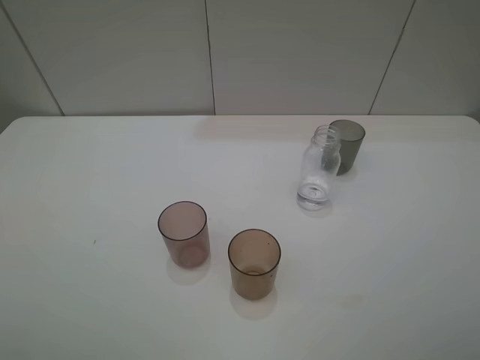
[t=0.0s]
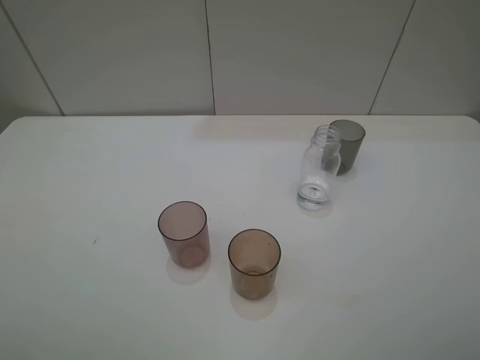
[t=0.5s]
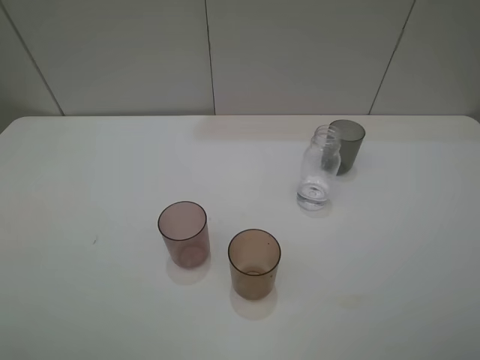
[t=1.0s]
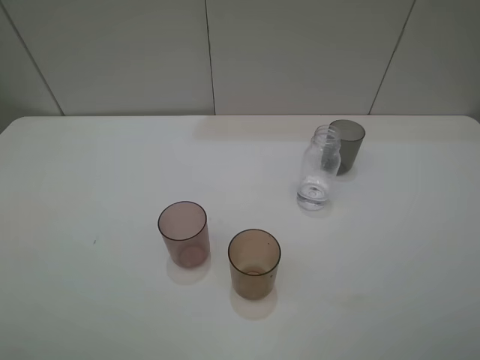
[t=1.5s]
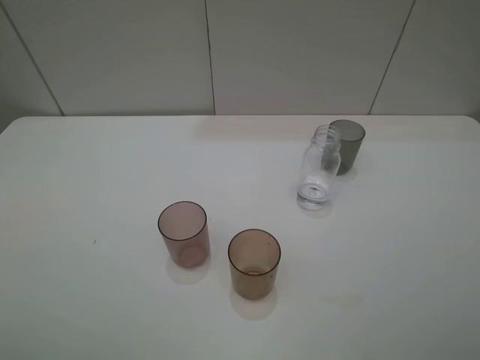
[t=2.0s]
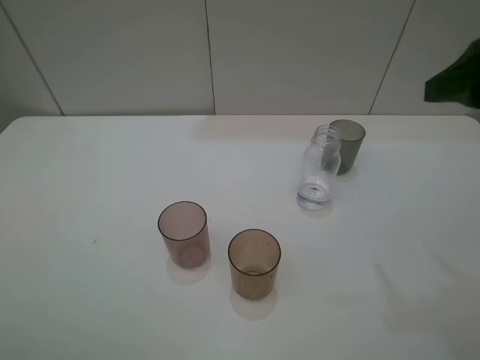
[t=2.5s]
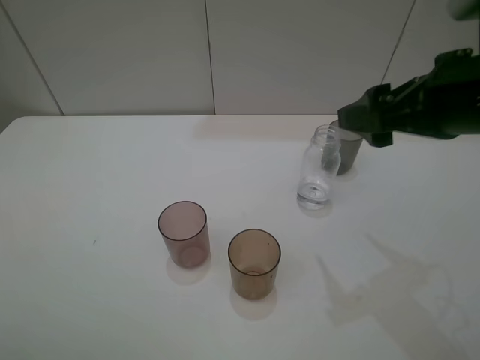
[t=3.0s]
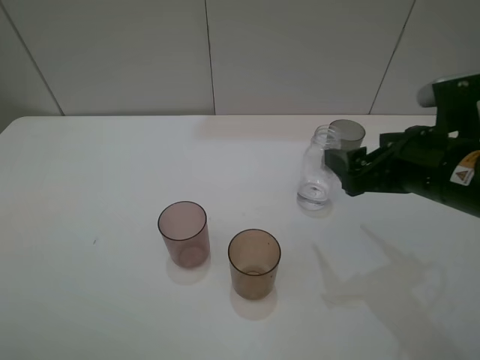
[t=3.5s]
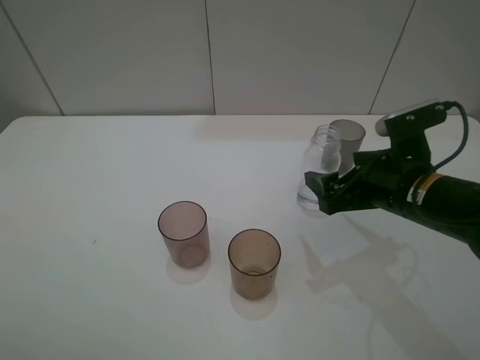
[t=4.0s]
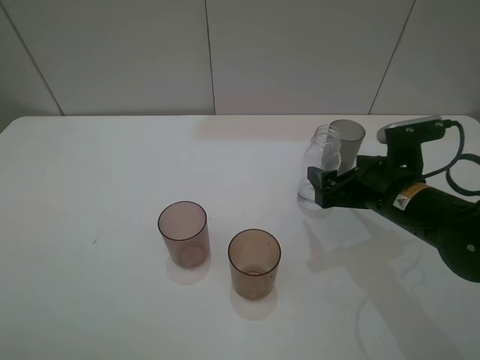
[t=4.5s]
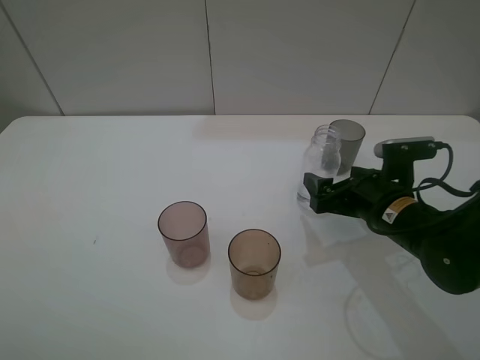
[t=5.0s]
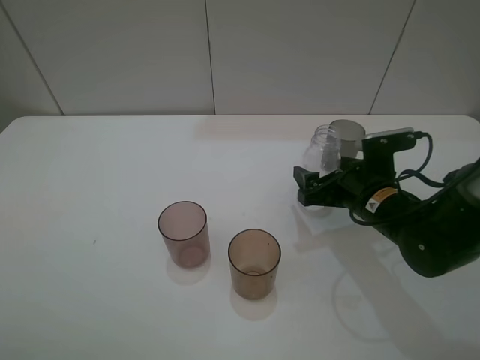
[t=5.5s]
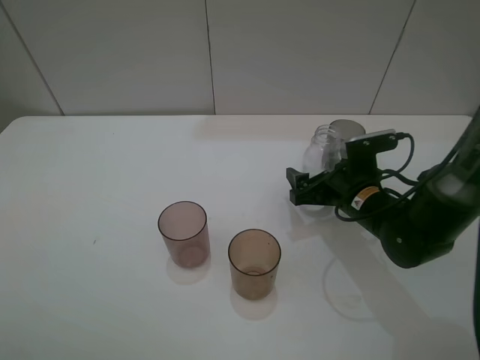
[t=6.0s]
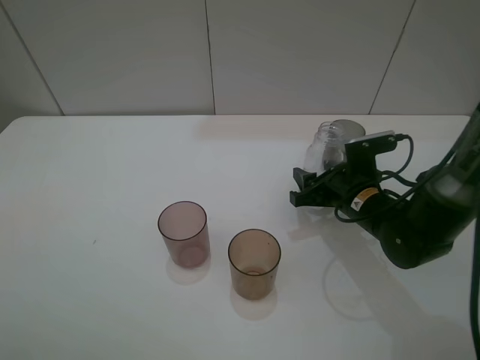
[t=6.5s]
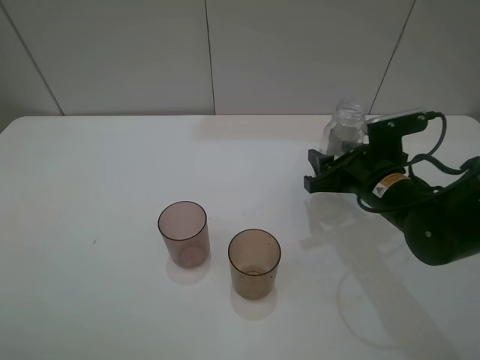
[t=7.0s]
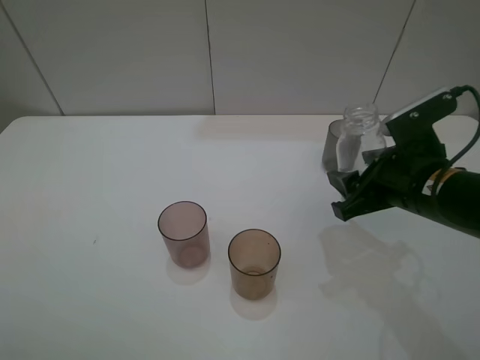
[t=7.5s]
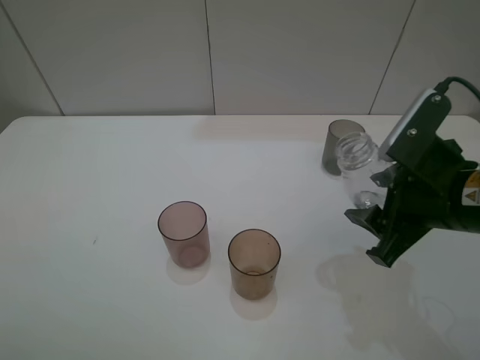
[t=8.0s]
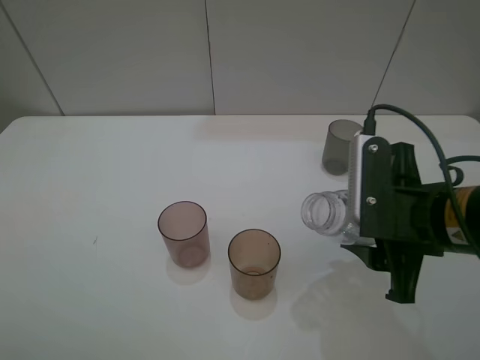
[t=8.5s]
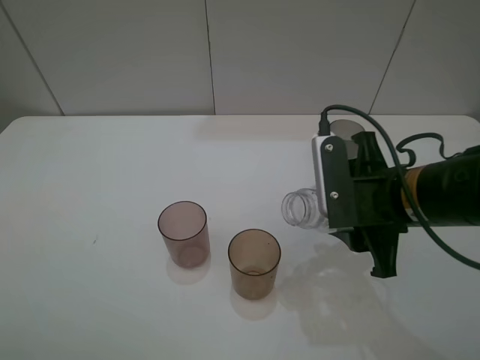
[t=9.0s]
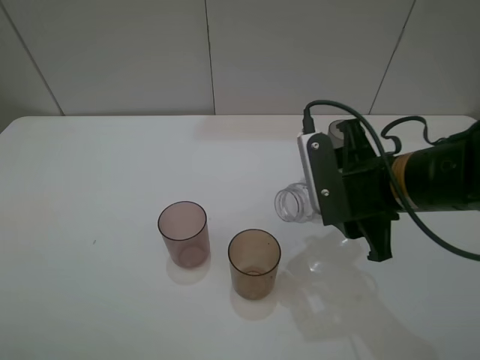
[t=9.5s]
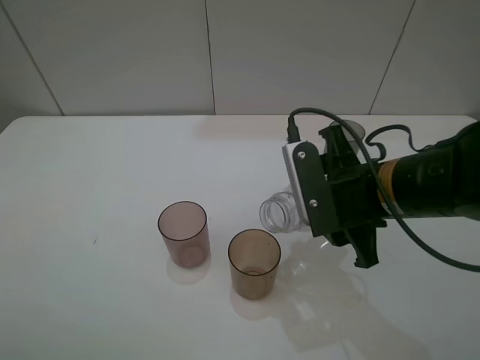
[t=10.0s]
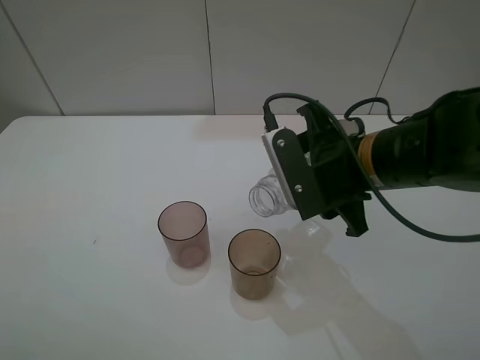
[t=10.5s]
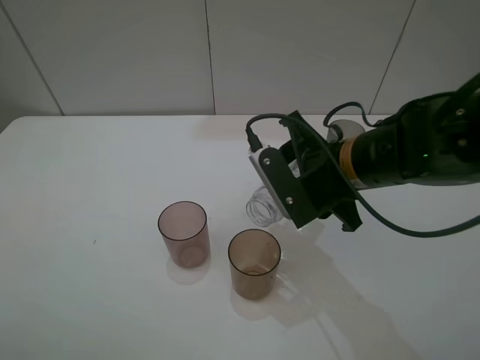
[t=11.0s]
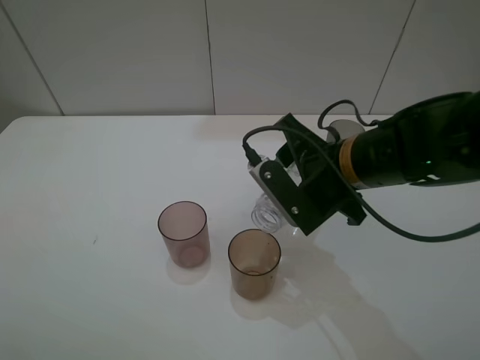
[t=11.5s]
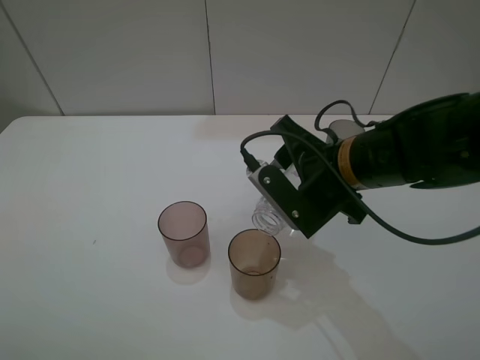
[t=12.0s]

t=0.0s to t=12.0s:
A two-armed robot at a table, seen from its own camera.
Task of the whole recording: pick up the bottle filled with water and pour water into the middle cup of the three cups.
Step, t=0.0s to t=6.0s: Place the transparent bottle with the right gripper.
t=2.0s to t=4.0s: The right gripper goes approximately 25 cm forward, downward and to the left.
t=4.0s to t=6.0s: The right gripper travels downward and forward by roughly 10 cm.
t=6.0s to t=8.0s: The right gripper is displaced upward and backward by approximately 15 cm, and closes.
t=8.0s to t=10.0s: The right gripper travels to the left by about 5 cm.

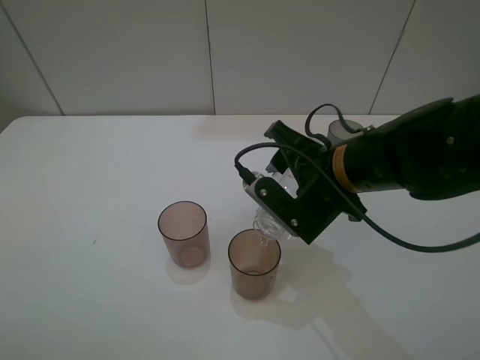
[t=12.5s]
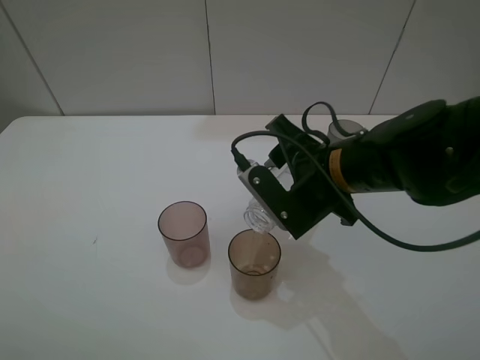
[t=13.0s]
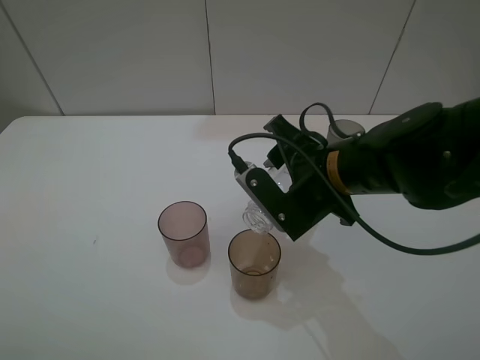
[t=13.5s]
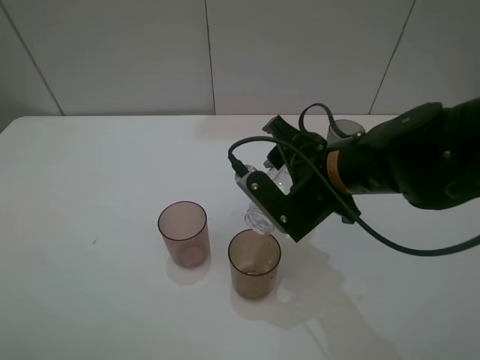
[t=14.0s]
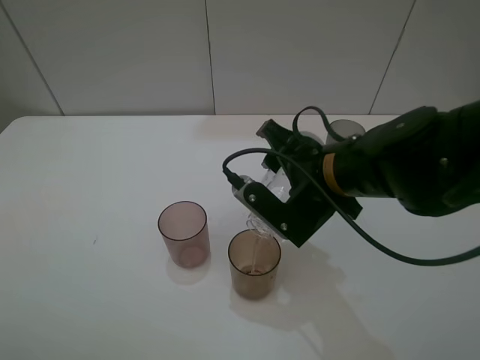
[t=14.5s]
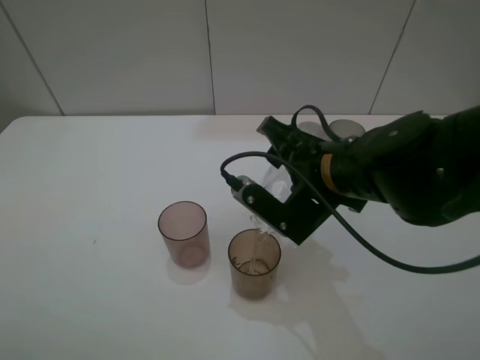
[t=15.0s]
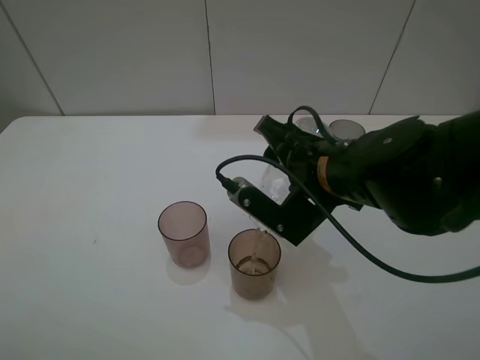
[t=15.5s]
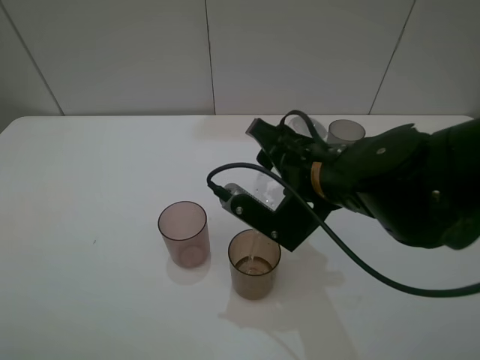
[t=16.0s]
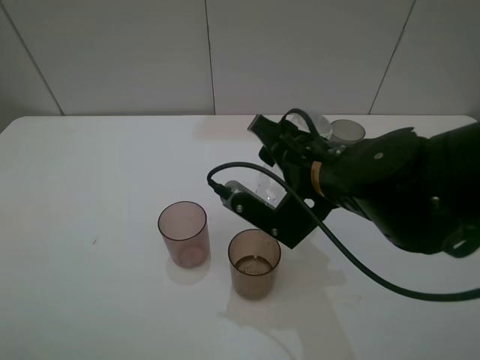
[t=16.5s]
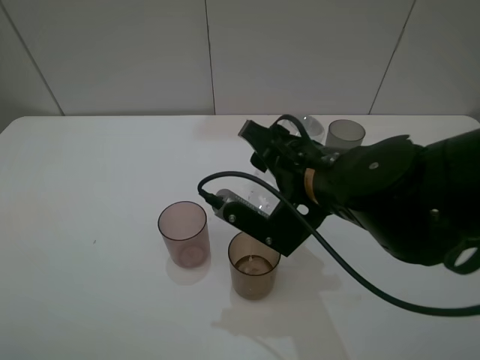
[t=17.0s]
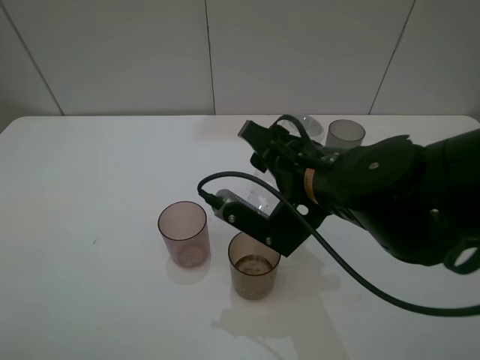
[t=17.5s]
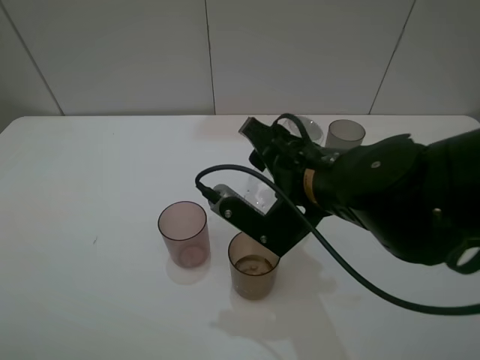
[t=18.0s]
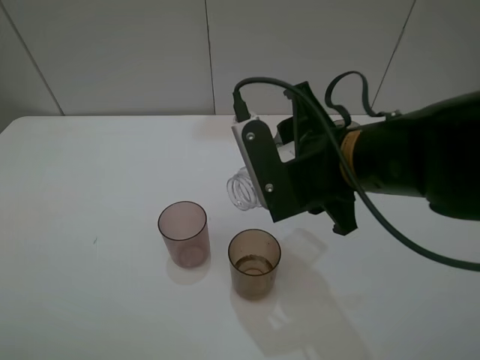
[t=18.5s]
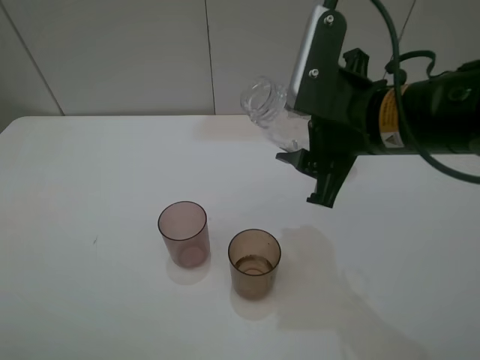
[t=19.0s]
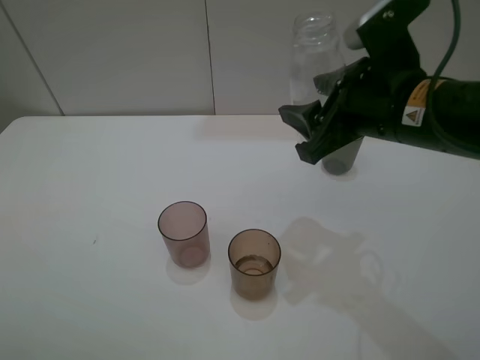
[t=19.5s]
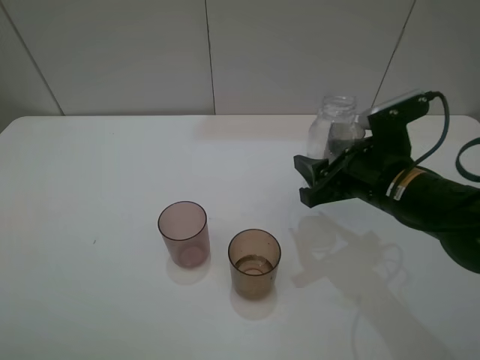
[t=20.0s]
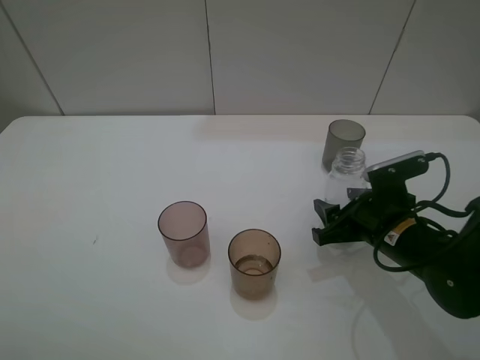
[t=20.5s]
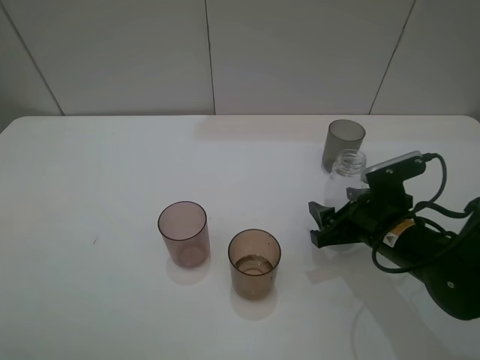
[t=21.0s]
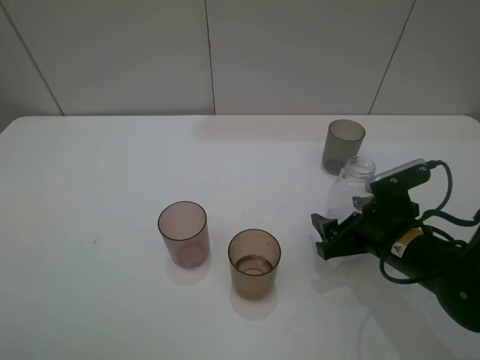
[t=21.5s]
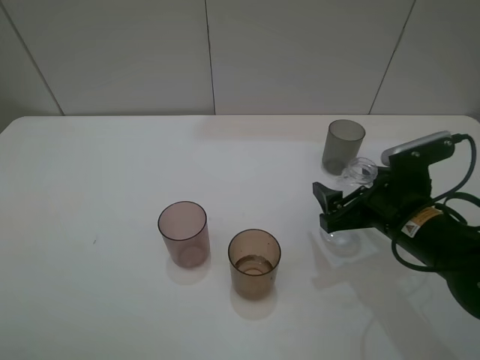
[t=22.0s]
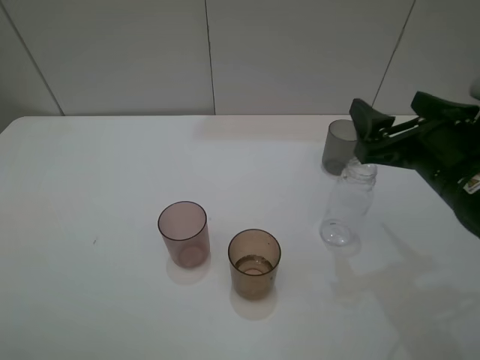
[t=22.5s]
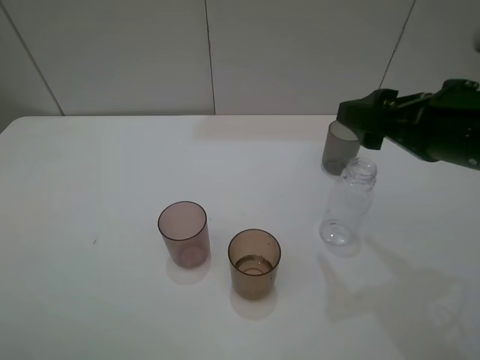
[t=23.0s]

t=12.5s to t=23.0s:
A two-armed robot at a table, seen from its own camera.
Task of the whole recording: pick up the bottle filled with water and pour water into the middle cup of the three cups.
Step, t=13.5s to t=22.0s: Place the transparent bottle with the right gripper.
t=12.5s to t=14.5s: The grippers move only a little.
t=14.5s to t=16.5s: The grippers make only small movements.
t=16.5s to t=19.0s: The right gripper is displaced upward by about 5 cm.
t=19.0s to t=21.0s: The right gripper travels downward by approximately 15 cm, and opens.
t=21.0s to t=23.0s: The right gripper is displaced upward by roughly 20 cm, and opens.

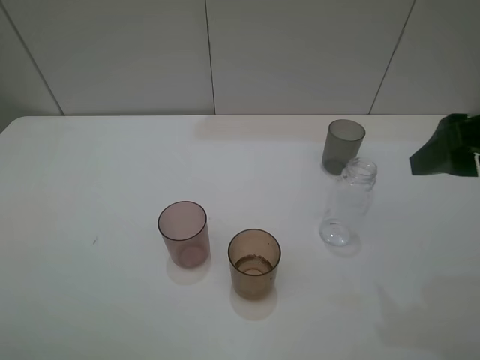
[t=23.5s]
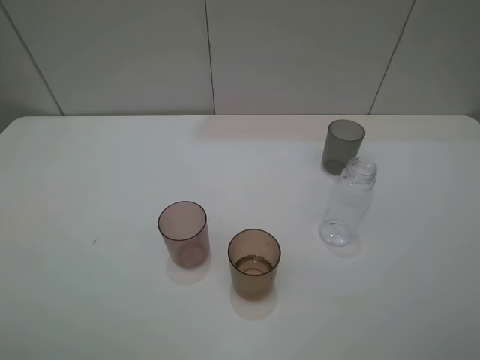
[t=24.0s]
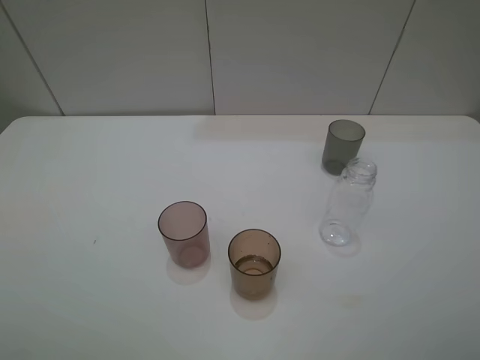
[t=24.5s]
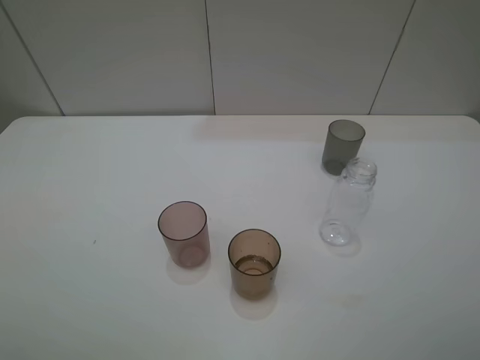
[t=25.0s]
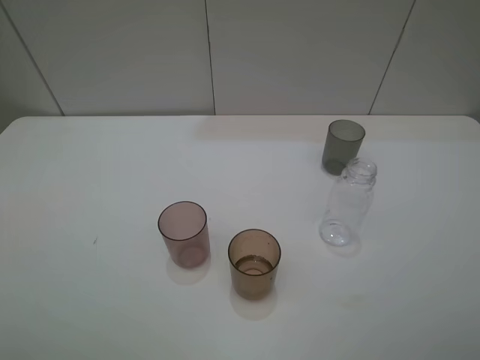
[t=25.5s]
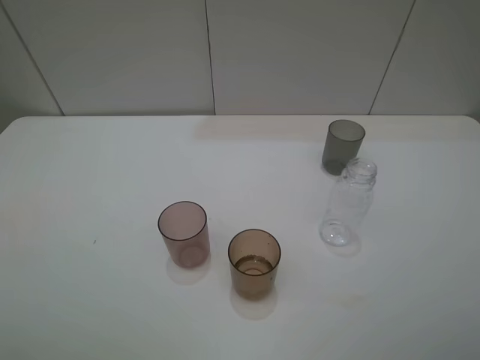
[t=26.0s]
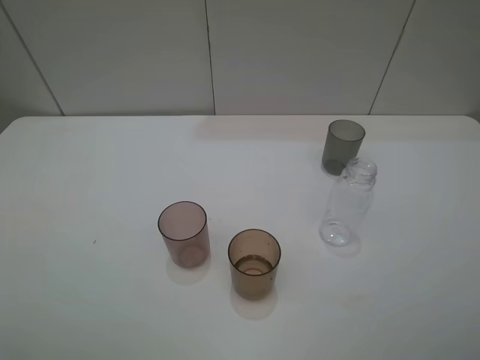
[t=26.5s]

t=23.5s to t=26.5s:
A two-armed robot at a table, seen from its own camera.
Task of the whole recording: pick up the bottle filled with water and pour water into the middle cup of the three cups.
t=23.5s to t=25.0s: The right gripper goes some 15 cm backward.
